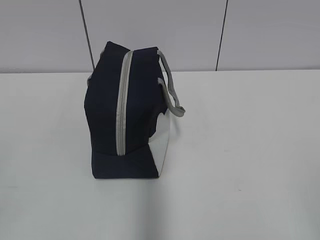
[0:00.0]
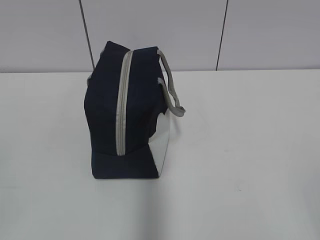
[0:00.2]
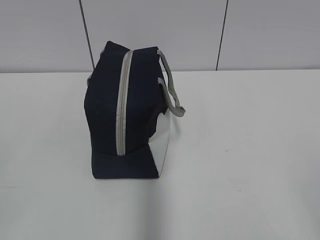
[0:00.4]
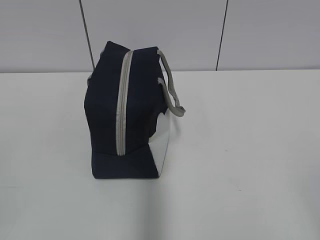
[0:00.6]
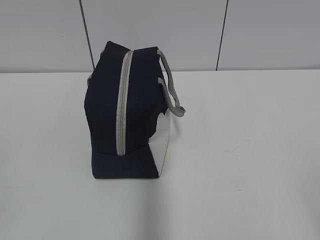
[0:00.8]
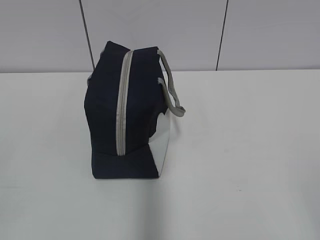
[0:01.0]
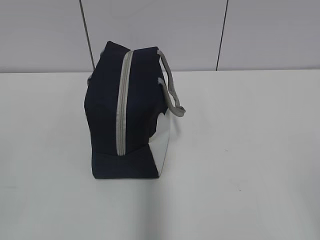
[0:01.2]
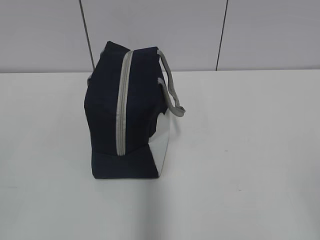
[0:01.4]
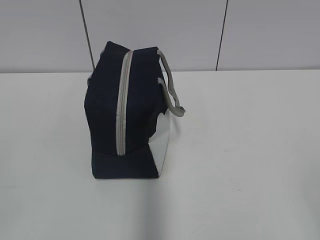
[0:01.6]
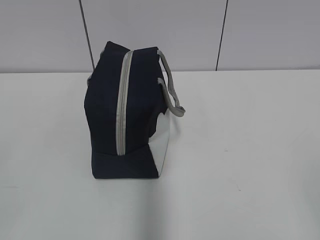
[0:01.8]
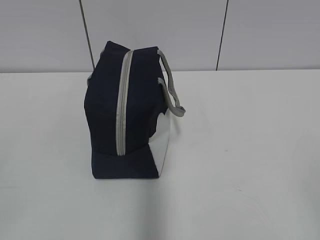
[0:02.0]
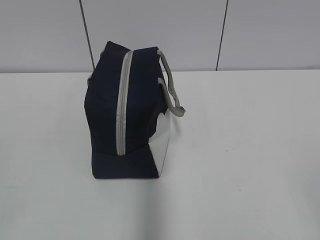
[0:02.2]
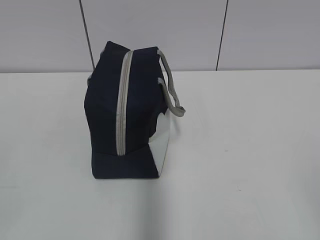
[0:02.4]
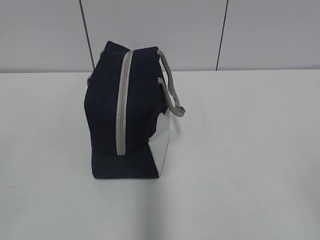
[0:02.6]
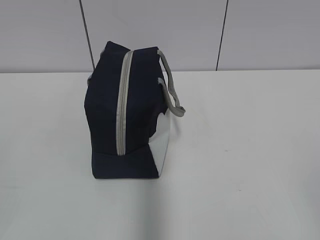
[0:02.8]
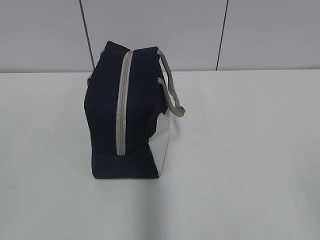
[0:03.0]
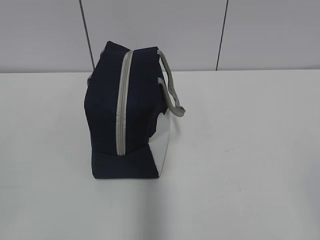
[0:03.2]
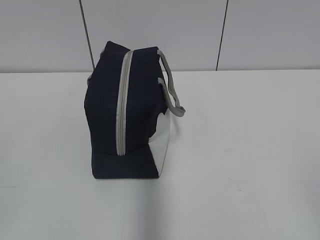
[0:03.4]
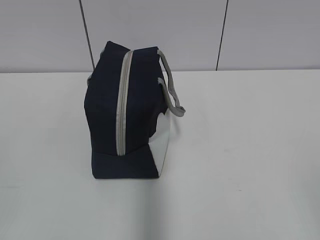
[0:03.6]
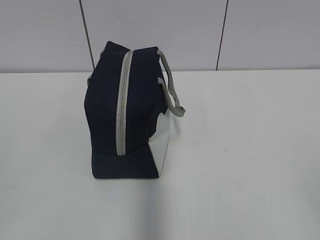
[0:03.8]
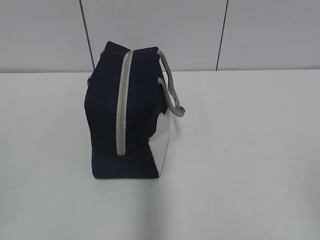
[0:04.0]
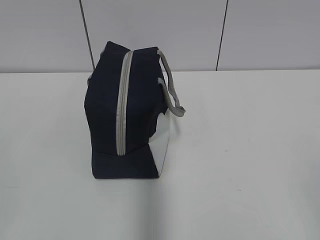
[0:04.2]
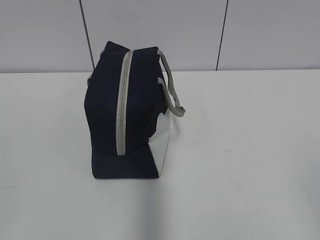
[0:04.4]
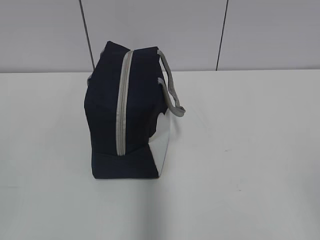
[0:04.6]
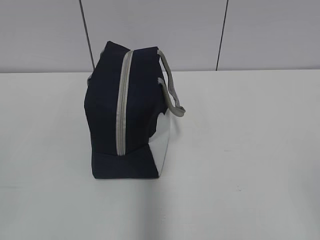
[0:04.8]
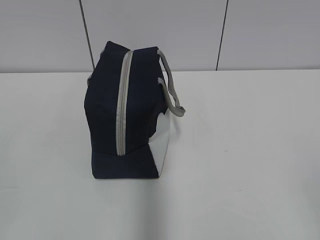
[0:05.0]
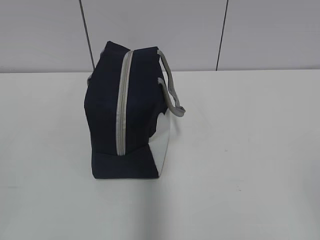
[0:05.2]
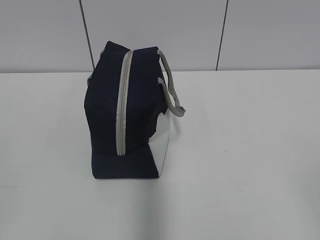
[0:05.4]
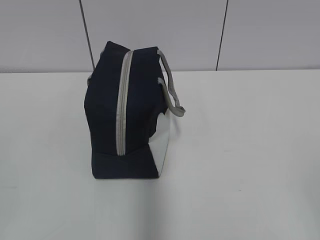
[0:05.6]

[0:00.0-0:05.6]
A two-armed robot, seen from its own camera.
0:02.8 to 0:05.6: Both grippers stay about where they are.
